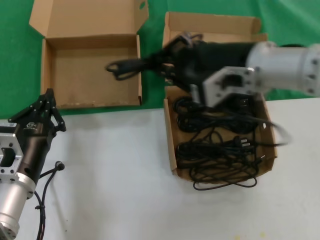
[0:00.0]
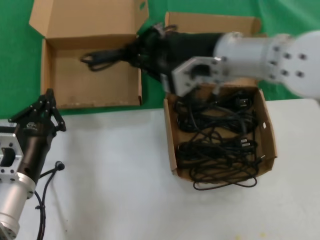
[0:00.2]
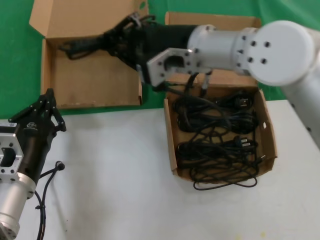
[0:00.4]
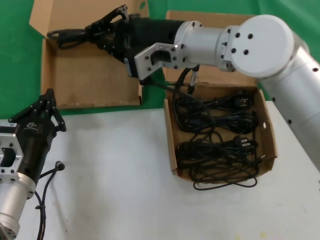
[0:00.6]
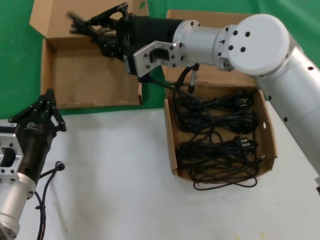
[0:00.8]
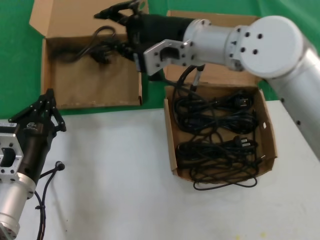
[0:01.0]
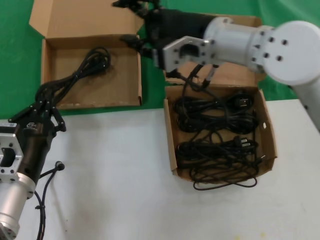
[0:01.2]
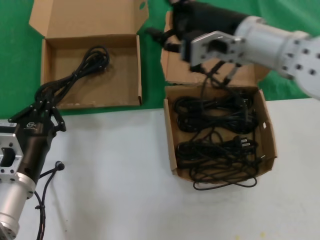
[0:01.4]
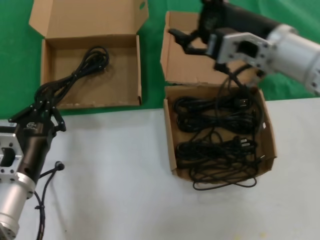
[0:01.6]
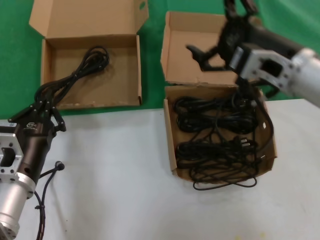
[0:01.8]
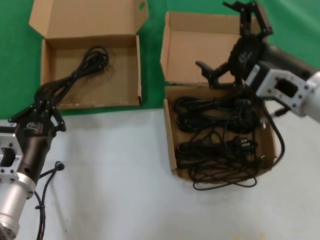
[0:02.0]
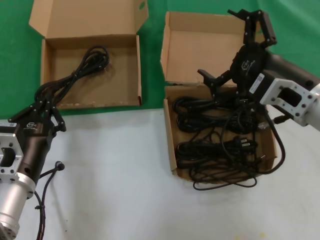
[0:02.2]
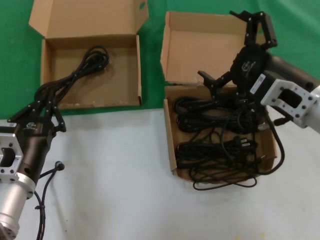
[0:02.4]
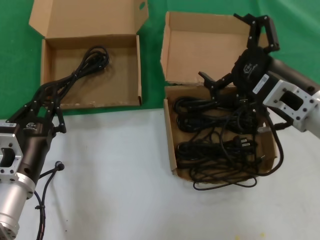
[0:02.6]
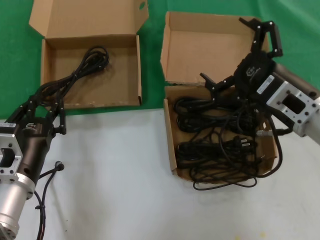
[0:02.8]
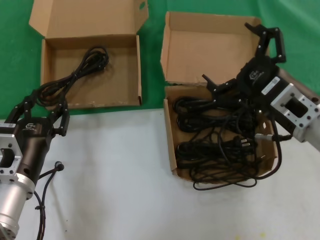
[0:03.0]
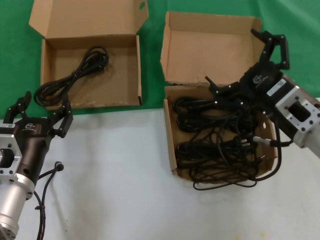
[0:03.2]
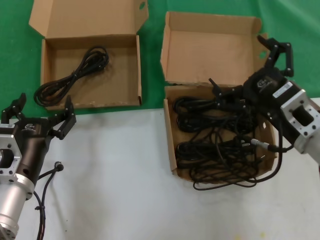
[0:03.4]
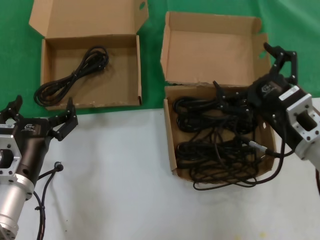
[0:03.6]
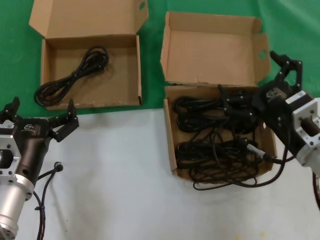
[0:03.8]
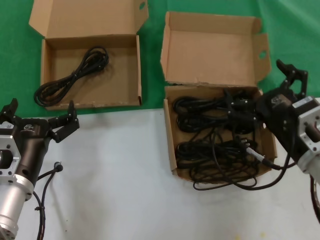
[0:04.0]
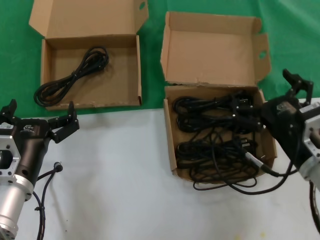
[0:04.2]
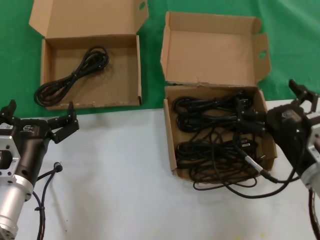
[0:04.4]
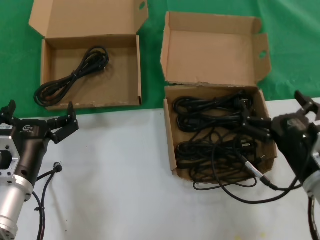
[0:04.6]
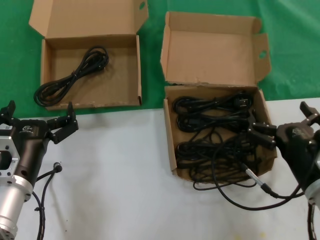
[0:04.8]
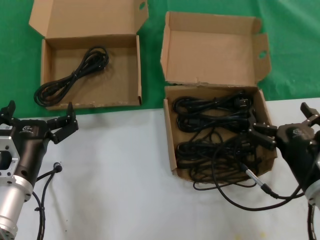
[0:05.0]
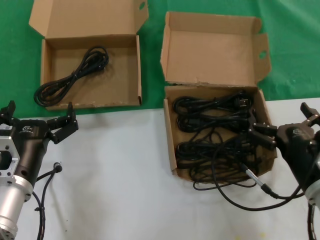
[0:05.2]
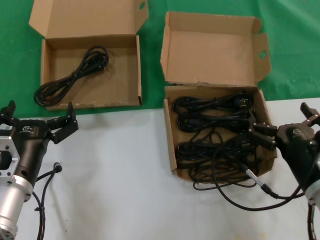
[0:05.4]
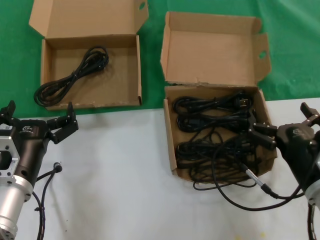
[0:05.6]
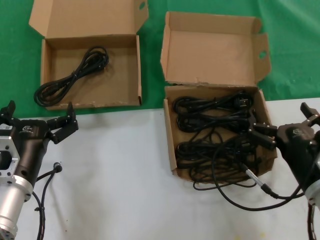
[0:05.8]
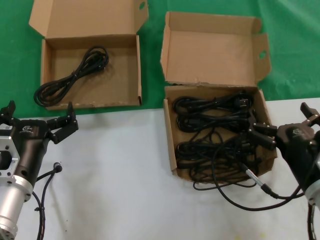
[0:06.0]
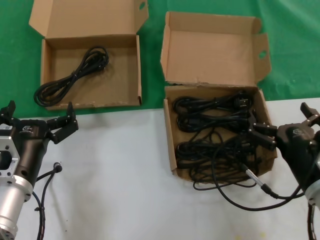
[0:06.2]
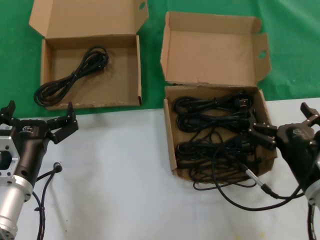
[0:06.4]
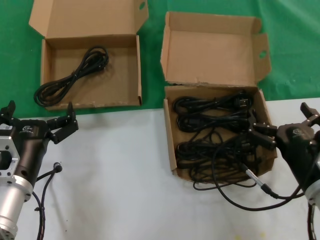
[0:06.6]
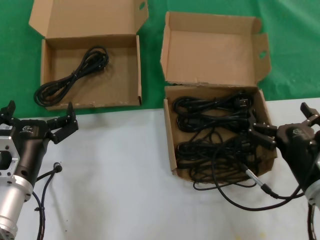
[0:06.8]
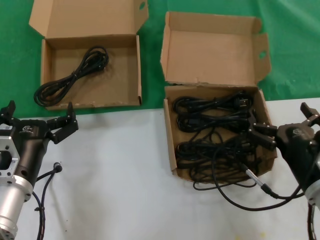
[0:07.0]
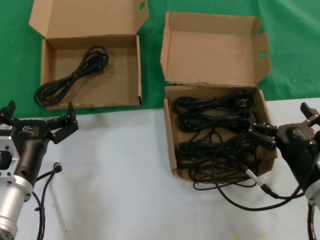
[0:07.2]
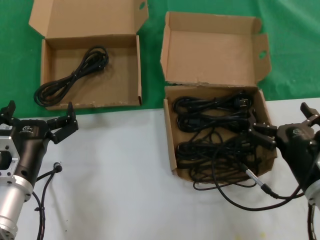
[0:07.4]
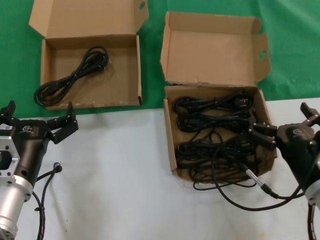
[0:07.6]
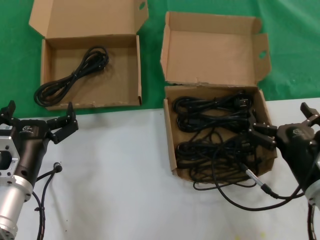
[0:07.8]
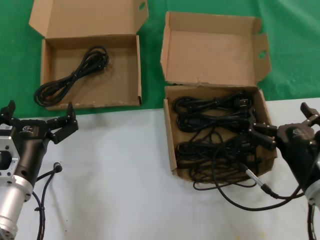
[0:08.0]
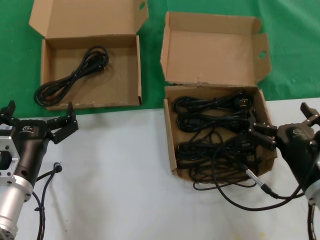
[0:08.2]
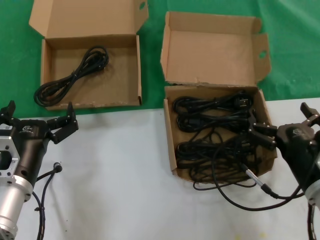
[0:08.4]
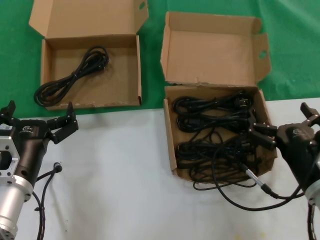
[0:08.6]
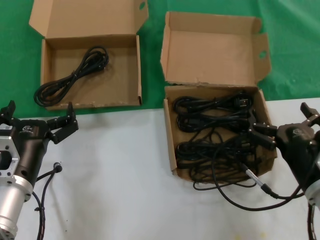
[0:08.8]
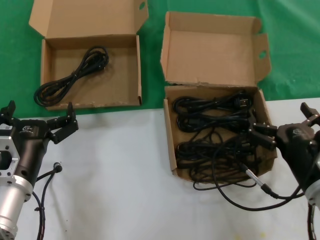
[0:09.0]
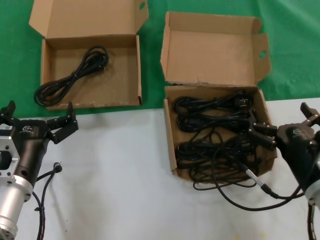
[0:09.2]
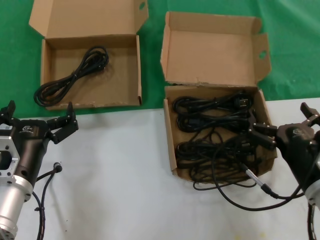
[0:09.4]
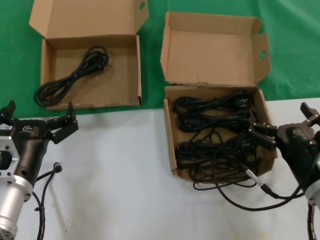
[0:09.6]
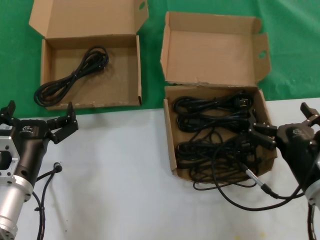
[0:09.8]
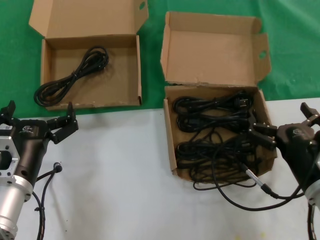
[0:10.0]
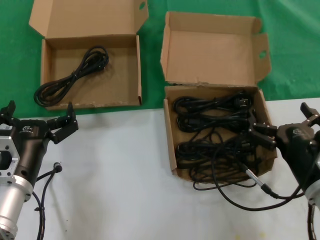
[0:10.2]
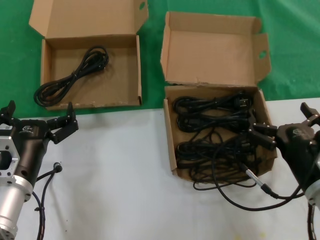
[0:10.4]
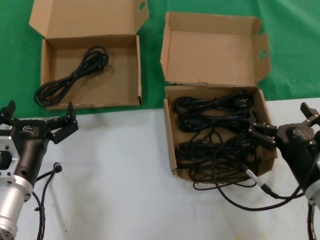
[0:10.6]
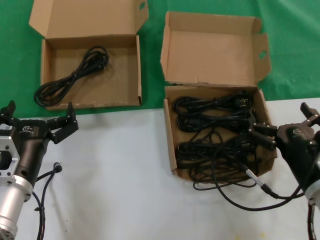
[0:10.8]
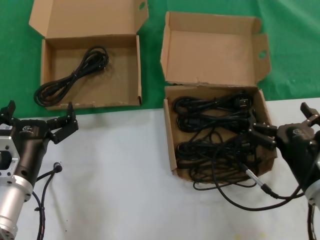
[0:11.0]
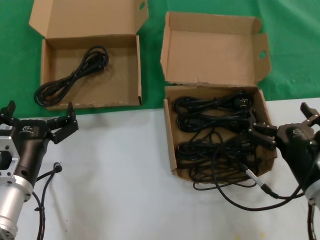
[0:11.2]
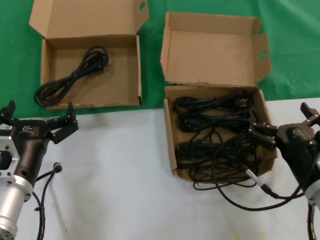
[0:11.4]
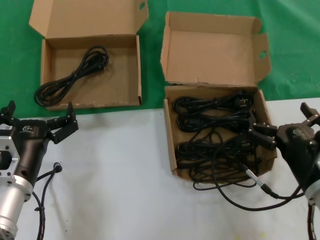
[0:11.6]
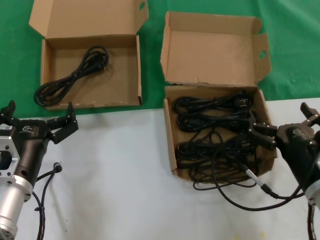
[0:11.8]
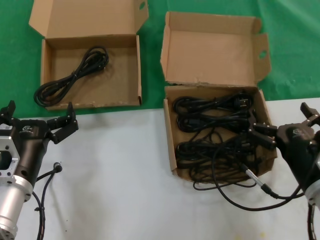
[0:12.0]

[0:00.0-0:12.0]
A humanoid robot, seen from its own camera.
Task of the whole recording: take the parts from the box containing them and put them into an empty box.
Step, 0:00.0 to 0:01.0: Place the data cable in the another box.
0:00.0 to 0:01.6: The right hand travels to the left and back again, approximately 10 cm each way.
0:01.6 to 0:03.0: The right hand goes roughly 15 cm downward, backward and to the right.
0:03.0 to 0:04.4: The right hand travels downward by about 10 cm.
0:04.4 to 0:06.0: The hands stay close to where they were, moving slightly.
0:06.0 to 0:12.0: Both hands stay about where they are.

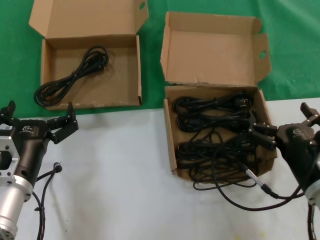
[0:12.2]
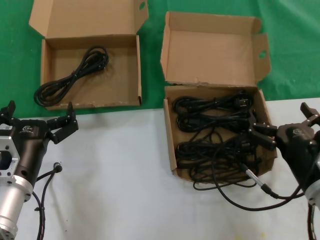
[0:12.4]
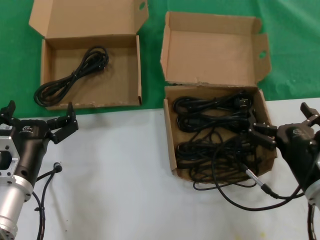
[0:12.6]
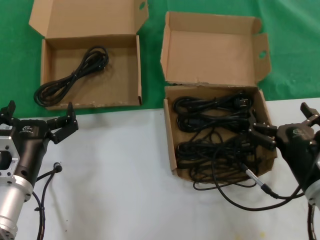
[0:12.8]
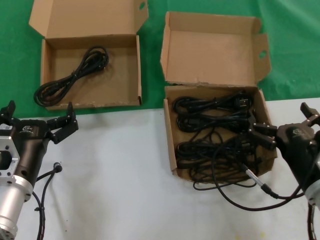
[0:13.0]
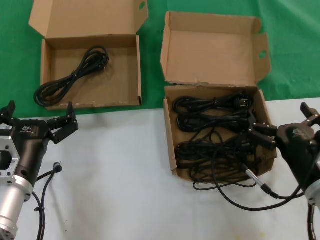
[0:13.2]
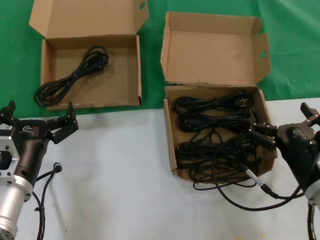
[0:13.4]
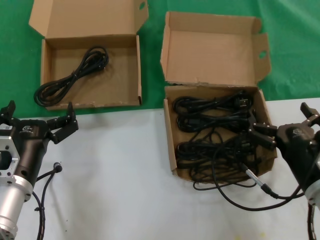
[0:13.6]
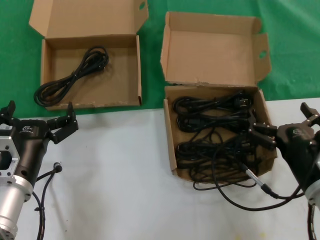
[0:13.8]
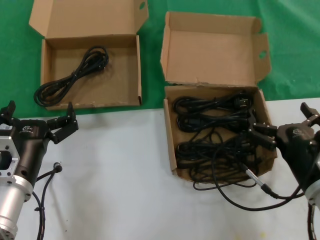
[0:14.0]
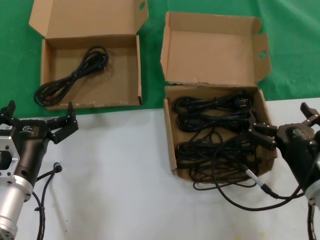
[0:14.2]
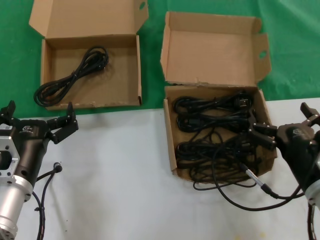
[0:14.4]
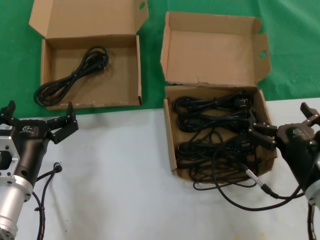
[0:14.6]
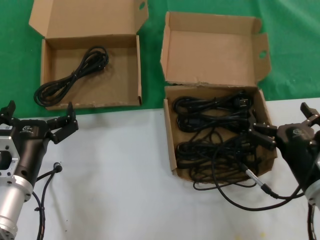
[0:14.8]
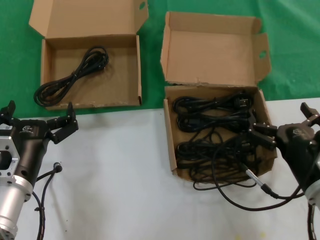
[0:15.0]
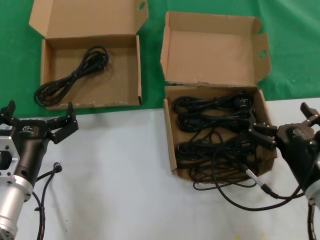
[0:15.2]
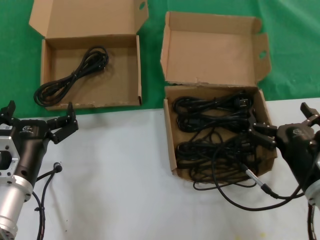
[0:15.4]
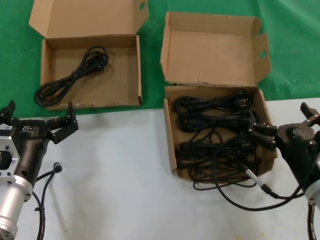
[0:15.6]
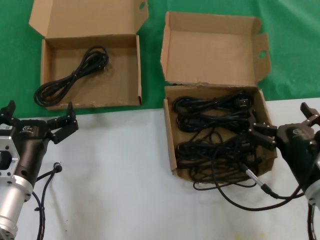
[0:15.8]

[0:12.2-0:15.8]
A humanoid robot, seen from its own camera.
Task of the whole recording: take the parts from the box containing them and put them into an empty box.
0:12.2 to 0:15.8: Both hands stay put.

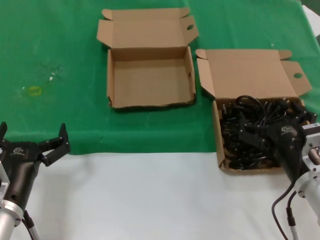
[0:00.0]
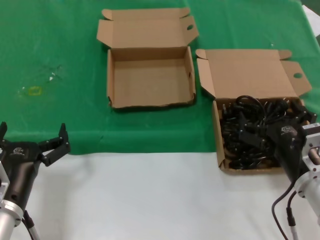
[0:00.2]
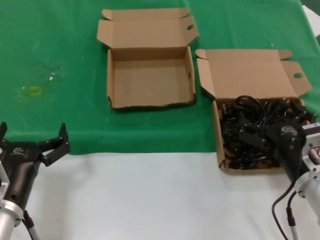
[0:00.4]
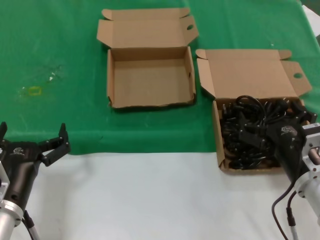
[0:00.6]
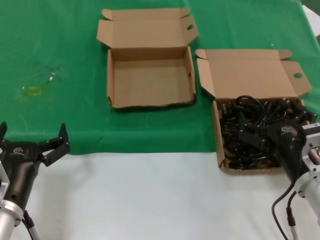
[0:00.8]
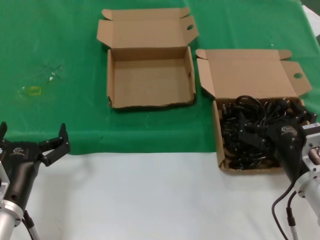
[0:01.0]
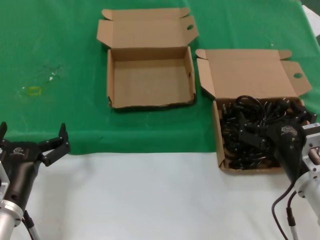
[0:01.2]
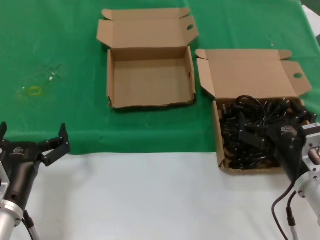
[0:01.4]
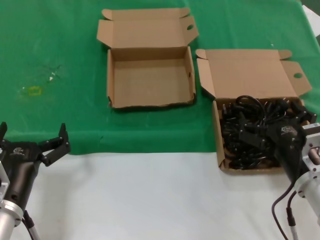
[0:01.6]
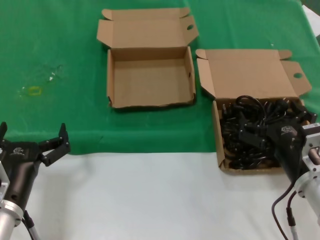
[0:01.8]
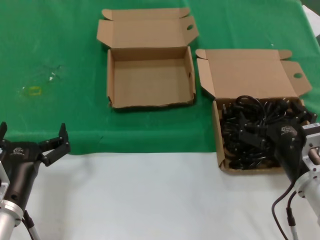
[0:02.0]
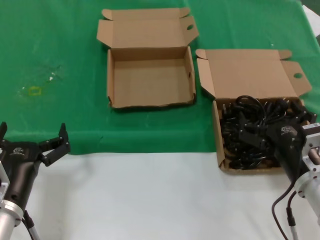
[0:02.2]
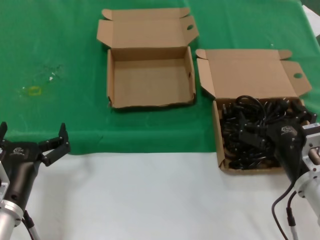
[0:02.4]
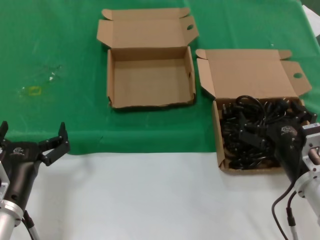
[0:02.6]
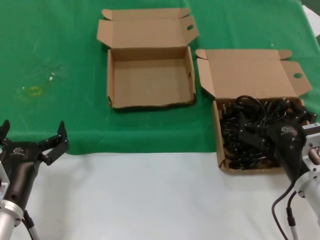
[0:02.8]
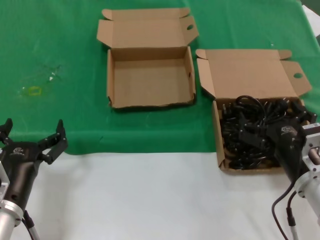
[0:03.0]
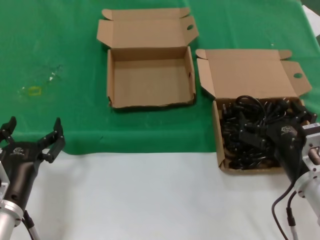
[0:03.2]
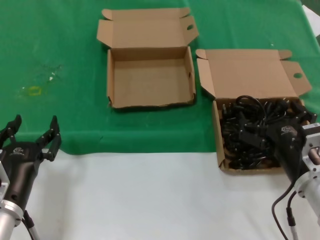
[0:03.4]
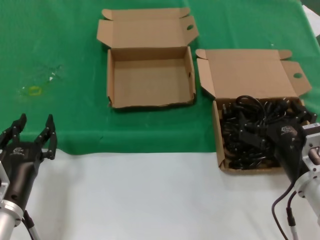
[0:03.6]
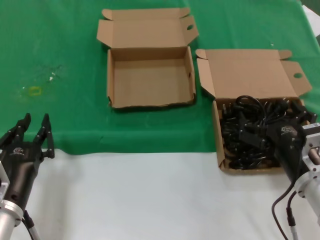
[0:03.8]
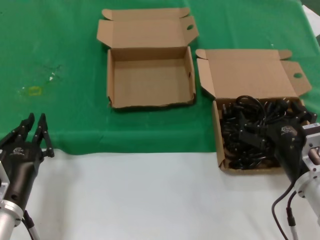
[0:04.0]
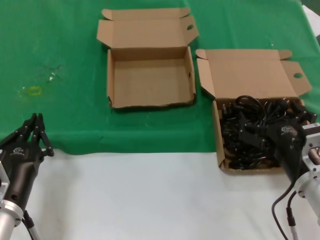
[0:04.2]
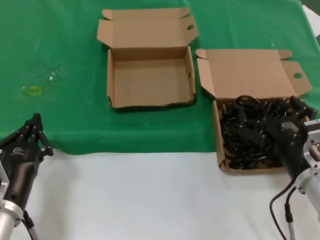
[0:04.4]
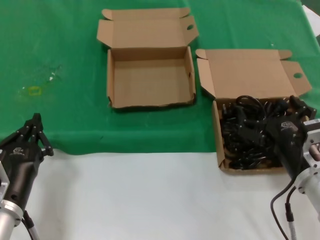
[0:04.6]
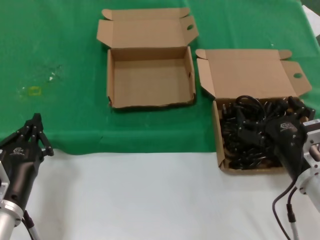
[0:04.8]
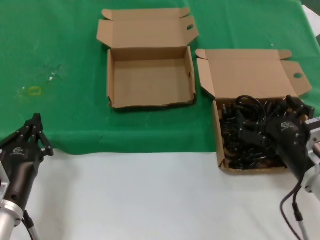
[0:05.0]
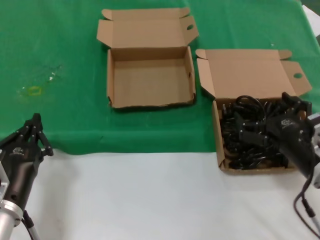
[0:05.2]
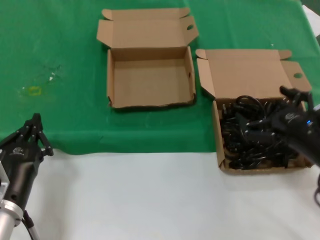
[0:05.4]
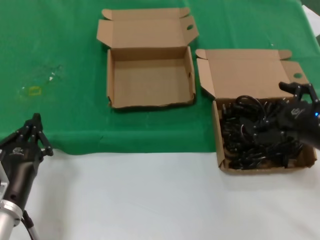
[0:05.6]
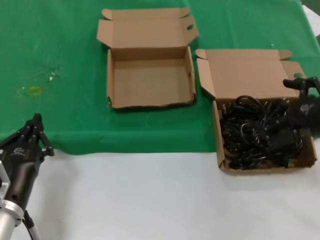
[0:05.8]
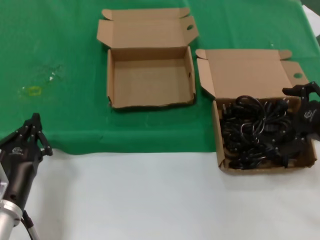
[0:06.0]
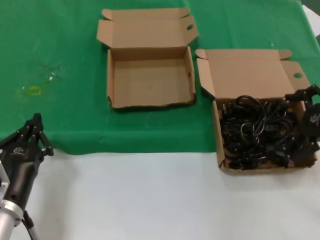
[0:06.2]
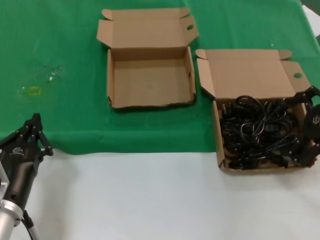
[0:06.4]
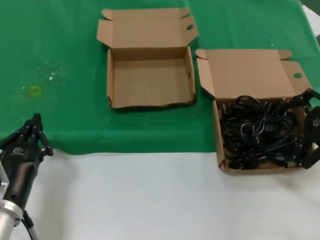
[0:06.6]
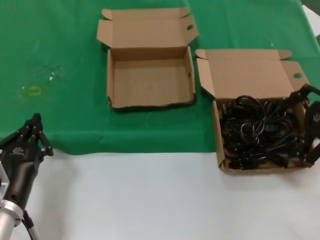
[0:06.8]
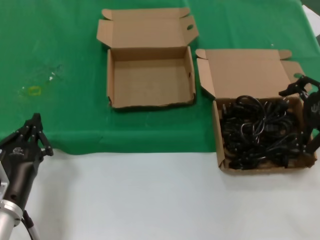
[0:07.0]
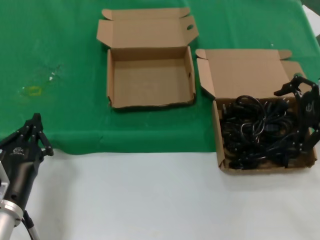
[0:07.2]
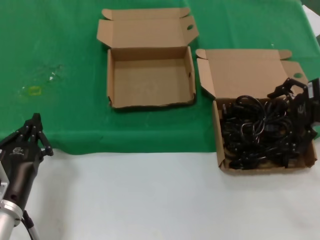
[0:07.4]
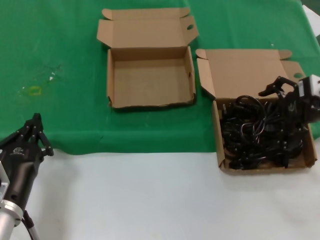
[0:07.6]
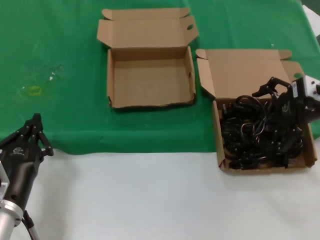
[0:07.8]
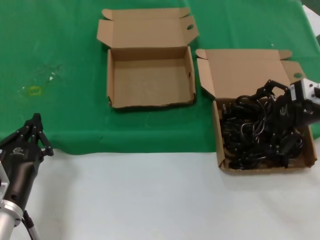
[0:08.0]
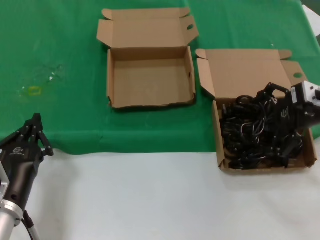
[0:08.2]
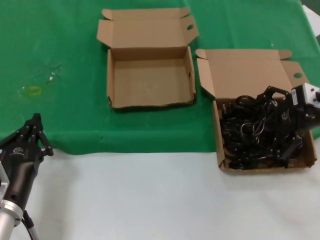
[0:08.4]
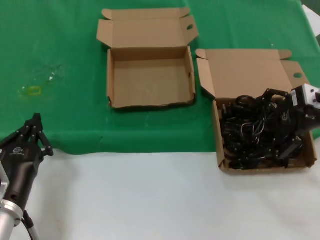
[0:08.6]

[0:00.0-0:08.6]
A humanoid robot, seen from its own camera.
Task of the whole recording: take the parts from the box containing them and put them into an empty box.
0:00.0 to 0:04.4: Both hands stay about where they are.
0:04.4 to 0:05.8: The right hand is displaced upward and to the right by approximately 15 cm.
0:05.8 to 0:07.2: The right hand shifts approximately 10 cm forward and upward.
0:07.2 to 0:08.6: The right hand changes place by about 5 cm.
